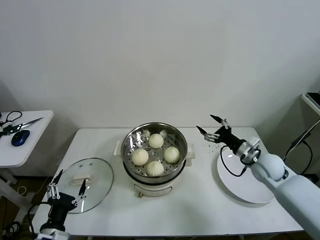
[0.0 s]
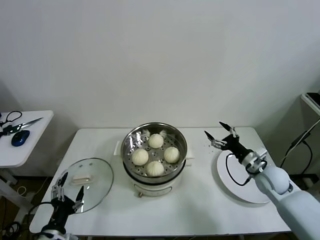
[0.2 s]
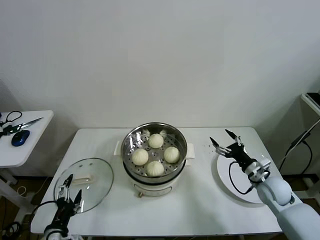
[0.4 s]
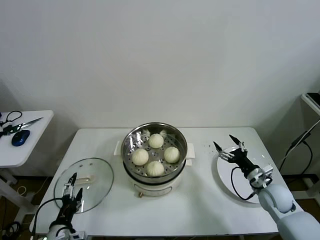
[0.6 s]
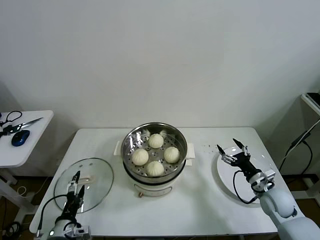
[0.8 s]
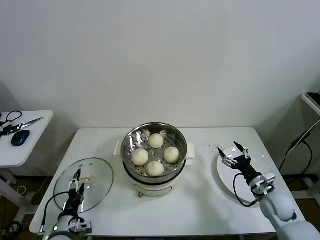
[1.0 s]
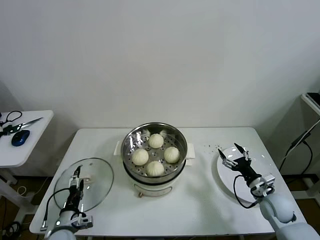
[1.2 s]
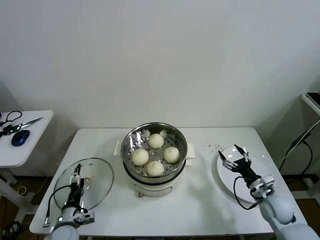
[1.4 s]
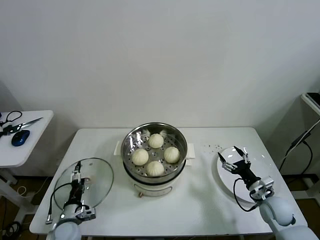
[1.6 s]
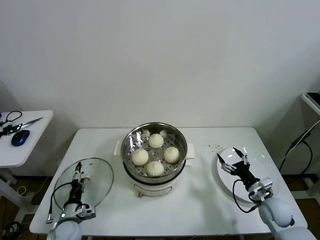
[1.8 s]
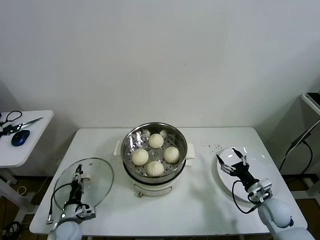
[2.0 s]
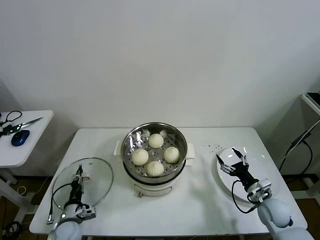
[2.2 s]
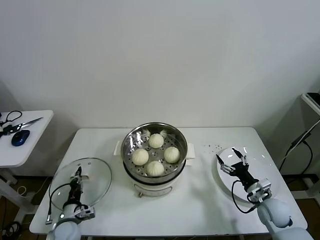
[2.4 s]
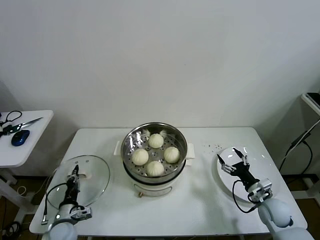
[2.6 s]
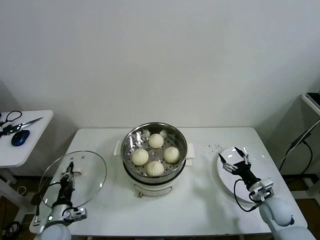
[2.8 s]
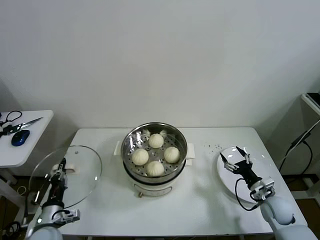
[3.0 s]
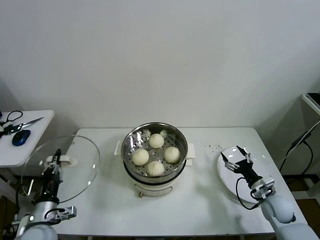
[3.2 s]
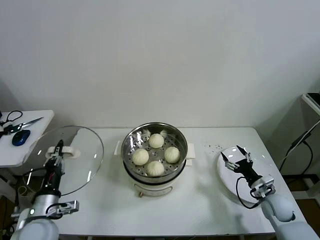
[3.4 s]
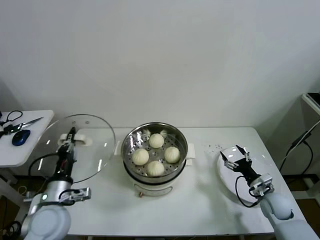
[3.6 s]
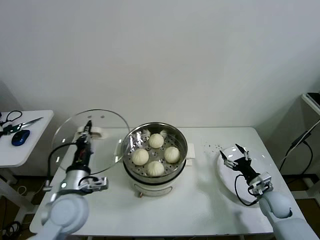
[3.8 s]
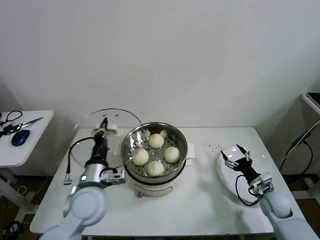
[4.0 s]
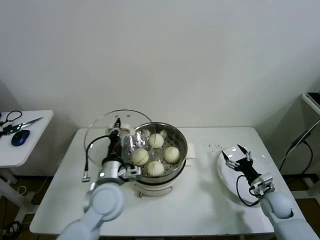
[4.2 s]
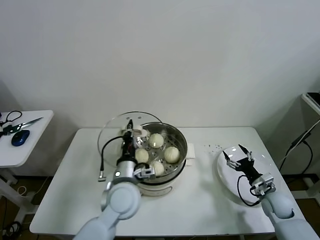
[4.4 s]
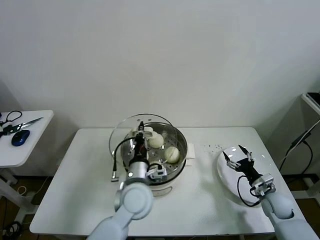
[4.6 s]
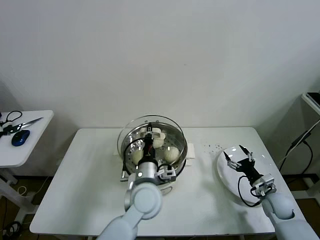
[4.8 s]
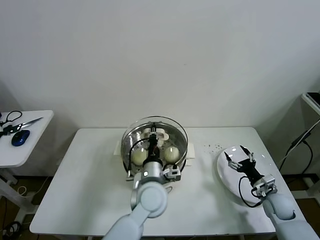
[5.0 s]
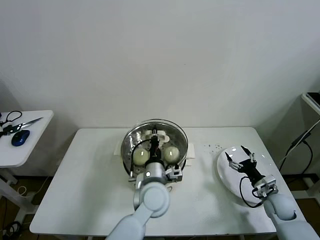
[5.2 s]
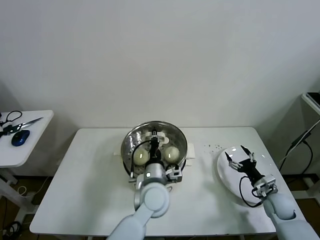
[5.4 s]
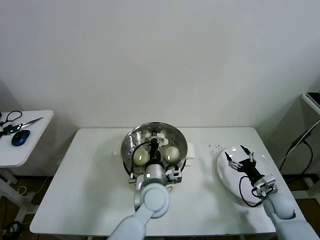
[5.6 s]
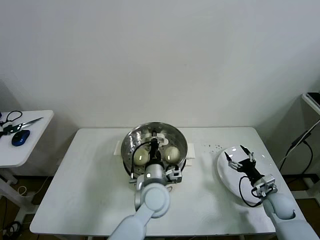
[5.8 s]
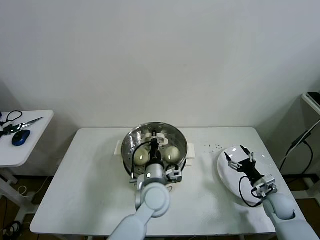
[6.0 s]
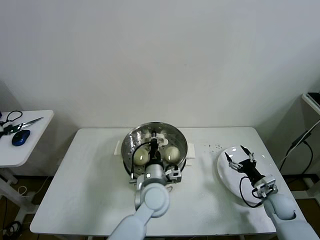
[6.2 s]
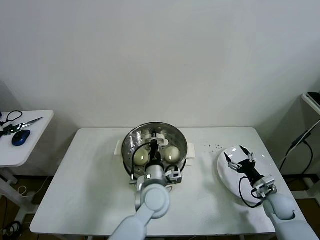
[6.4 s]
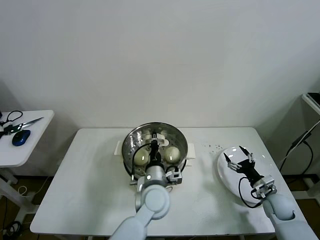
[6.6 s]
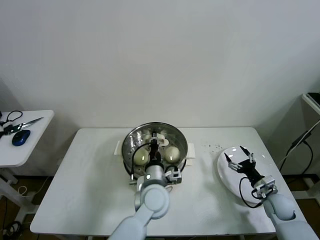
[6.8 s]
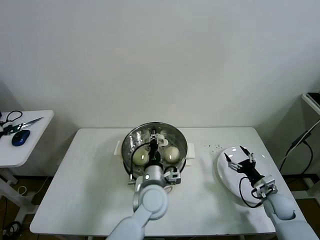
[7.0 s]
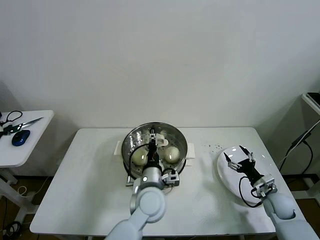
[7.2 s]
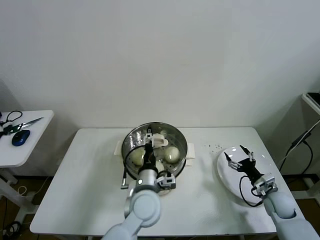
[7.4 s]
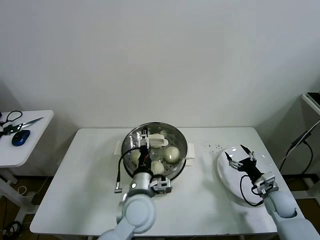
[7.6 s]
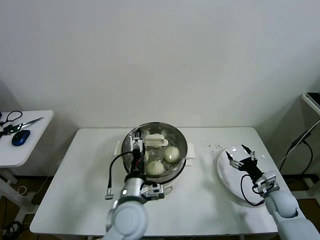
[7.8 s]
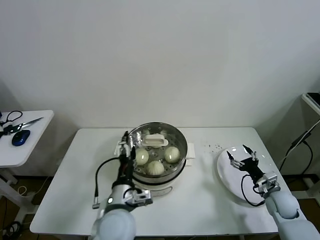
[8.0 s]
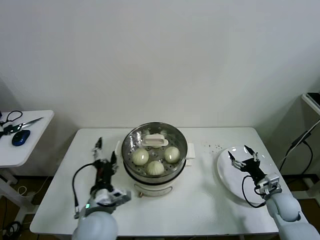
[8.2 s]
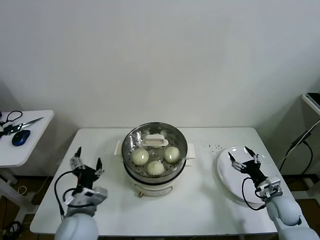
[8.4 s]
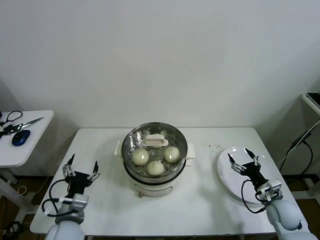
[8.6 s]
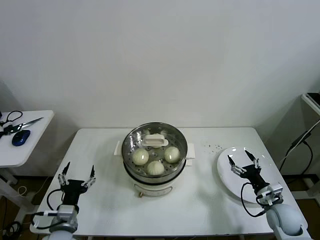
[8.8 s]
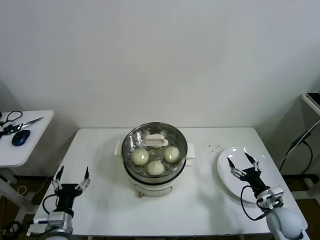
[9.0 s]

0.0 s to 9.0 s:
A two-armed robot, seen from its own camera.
Task of the whole recording: take steamed baozi put them in steamer then cover it.
Step, 0.0 to 2.2 s: Grasp the pot lid with left gripper.
Step, 2.6 to 7.2 s: Place the pot lid on the steamer with left gripper.
0.0 to 1.6 s: The right gripper goes roughly 15 cm downward and backward, while the left gripper moves downward and forward, some 15 cm.
1.6 to 3.0 s: The left gripper heads upward, covering roughly 5 cm, and closes up.
3.0 to 4.4 s: The left gripper goes about 25 cm to the right and upward.
4.4 to 6.0 s: The left gripper goes about 10 cm to the right.
6.0 to 7.6 s: The left gripper ends up some 5 cm from where it was, and opens its fingers.
7.6 to 9.0 s: The left gripper travels to the left by roughly 25 cm; the right gripper travels backward by approximately 5 cm.

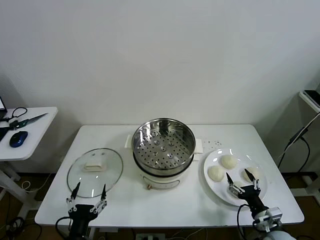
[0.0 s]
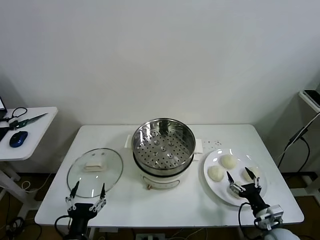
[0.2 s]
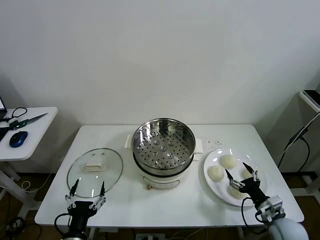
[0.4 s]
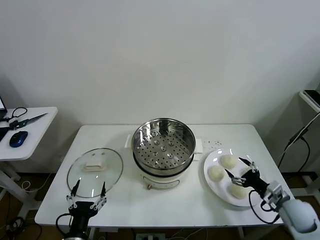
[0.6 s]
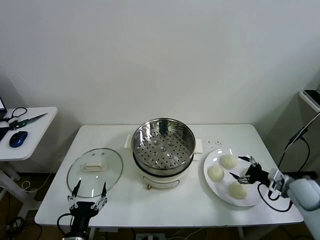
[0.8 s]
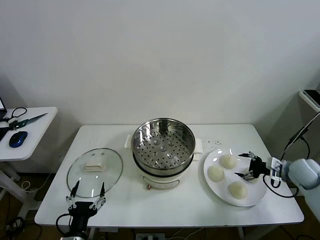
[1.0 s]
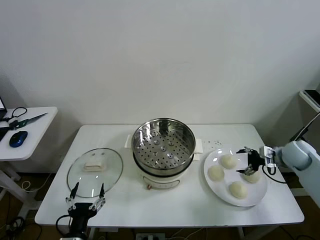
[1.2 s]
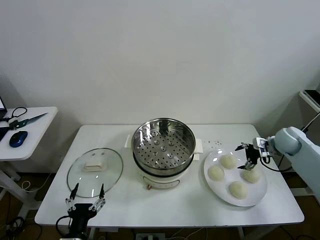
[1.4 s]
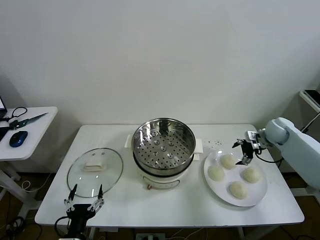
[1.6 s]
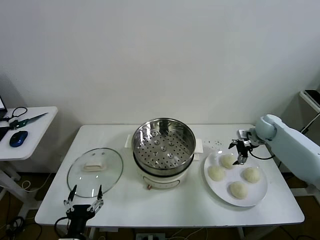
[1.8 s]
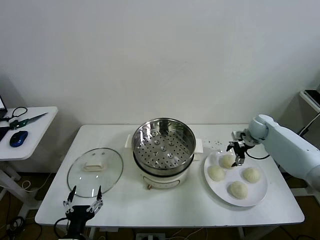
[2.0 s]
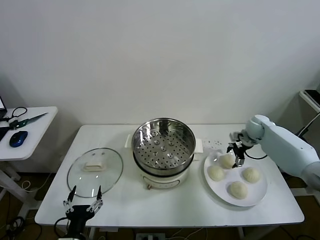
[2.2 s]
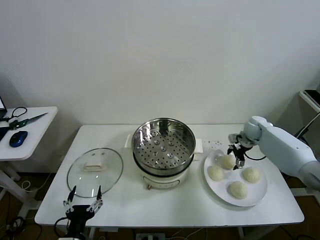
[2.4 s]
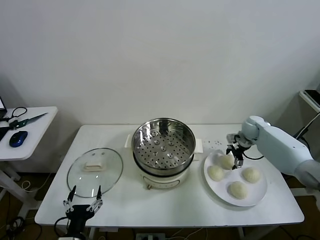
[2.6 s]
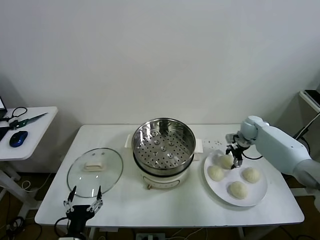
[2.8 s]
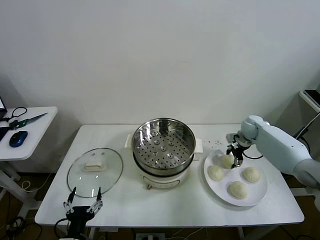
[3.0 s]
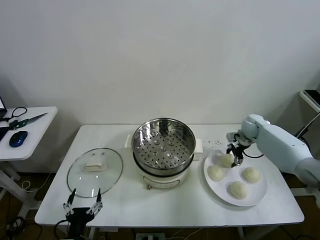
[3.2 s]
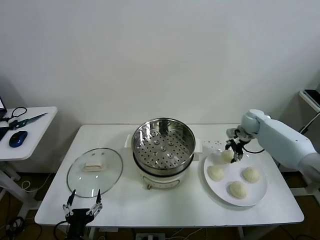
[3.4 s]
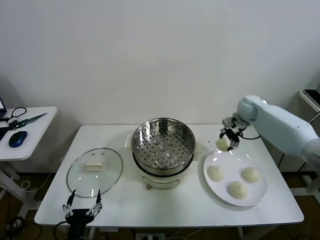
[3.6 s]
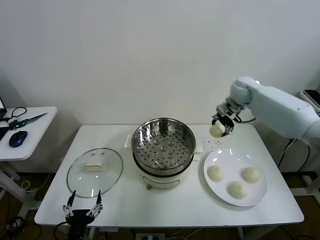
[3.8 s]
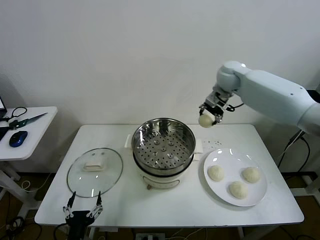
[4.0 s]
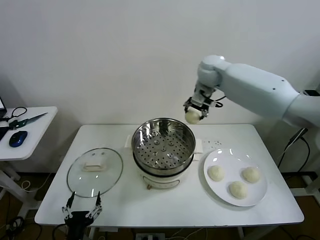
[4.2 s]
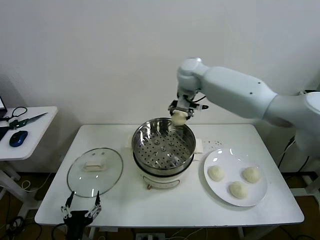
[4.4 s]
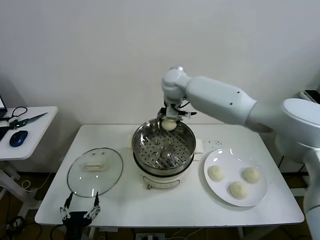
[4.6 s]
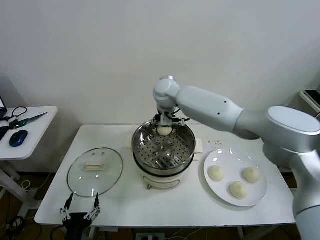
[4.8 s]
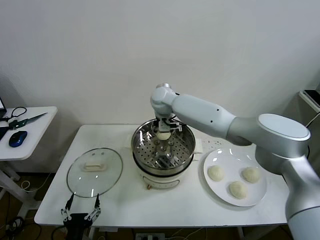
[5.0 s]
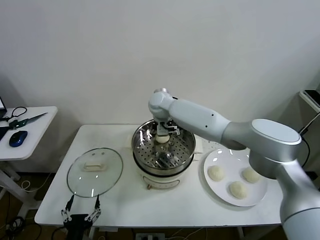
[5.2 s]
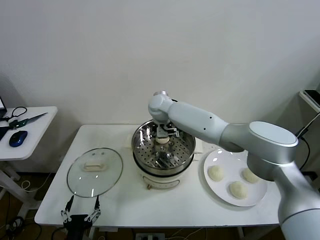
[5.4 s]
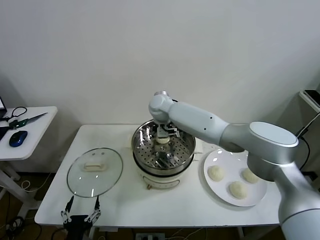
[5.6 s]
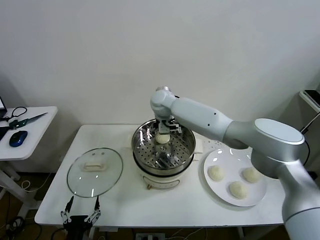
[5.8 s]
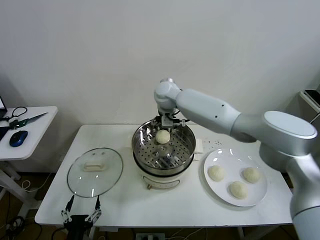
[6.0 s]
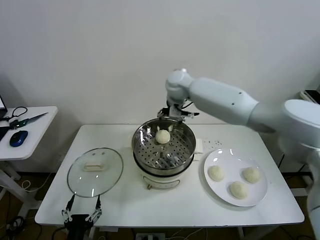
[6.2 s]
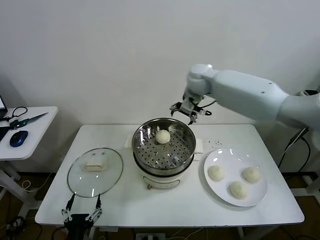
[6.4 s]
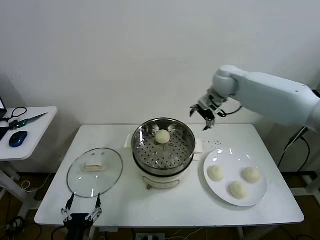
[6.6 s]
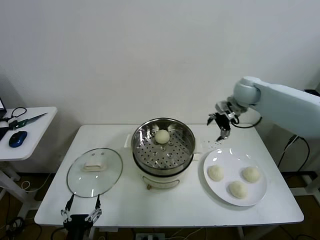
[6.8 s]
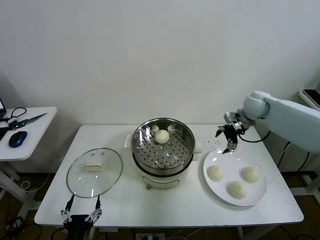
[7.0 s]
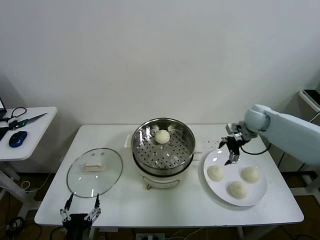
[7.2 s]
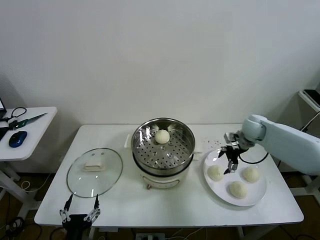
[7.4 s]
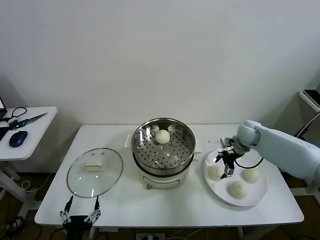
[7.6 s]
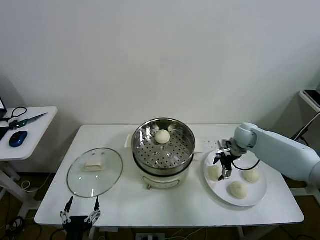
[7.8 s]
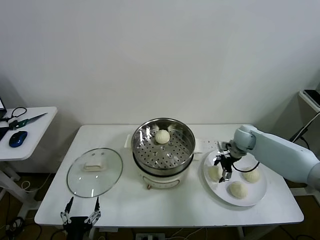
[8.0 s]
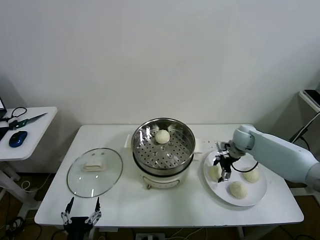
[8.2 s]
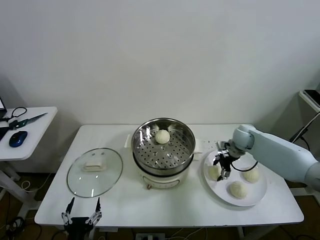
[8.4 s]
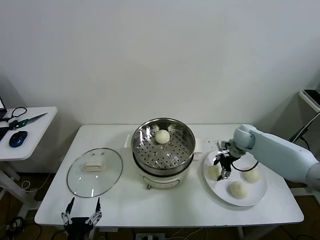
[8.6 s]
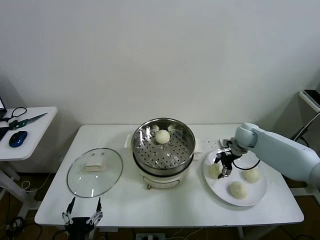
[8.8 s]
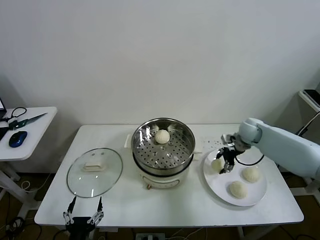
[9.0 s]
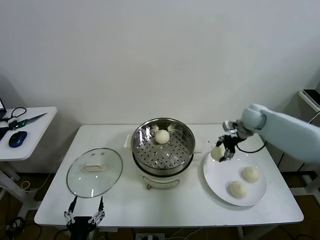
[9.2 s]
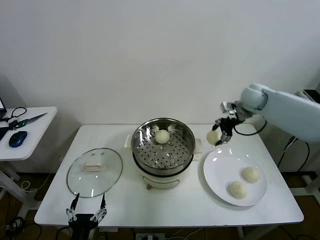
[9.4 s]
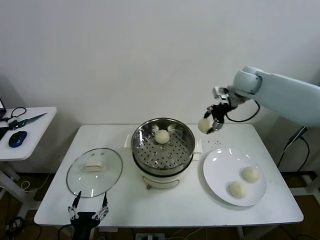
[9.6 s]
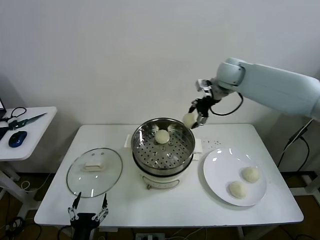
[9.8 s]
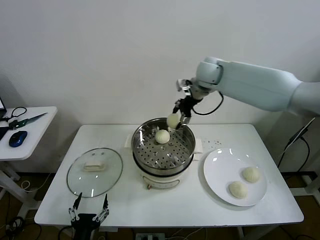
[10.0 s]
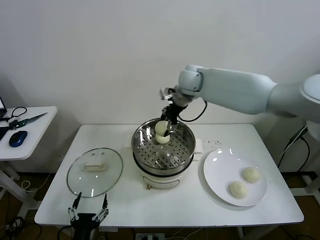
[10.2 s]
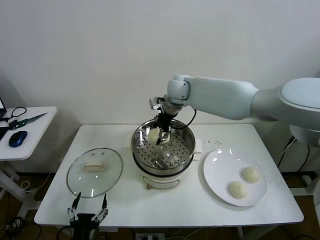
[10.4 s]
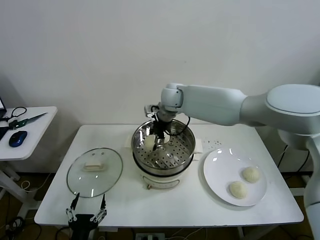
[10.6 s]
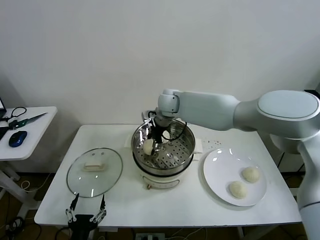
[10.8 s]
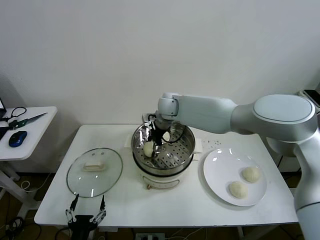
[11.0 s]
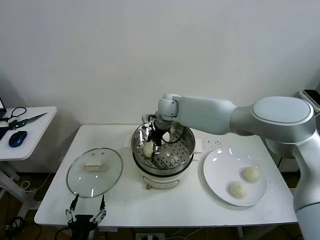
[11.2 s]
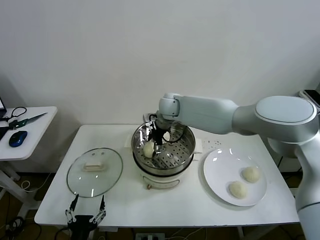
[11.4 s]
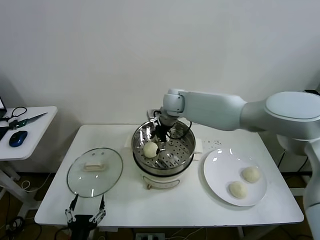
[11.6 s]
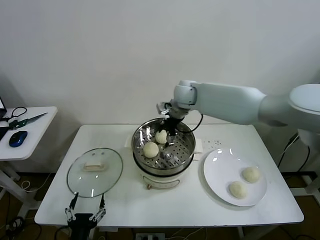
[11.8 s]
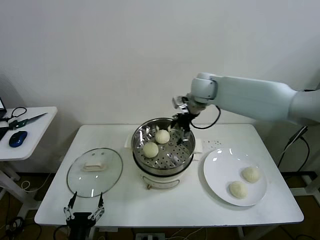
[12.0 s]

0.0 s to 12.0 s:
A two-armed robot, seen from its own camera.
Task of the whole recording: take steamed baozi put them in steamer then cover it.
Step, 0.0 to 3.0 s: Grasp the baozi in the plate with right gripper.
Step, 3.2 to 5.6 s: Place the baozi on the steamer with right gripper.
Step, 5.8 to 8.4 s: Grasp the baozi in the plate with right gripper.
Step, 8.6 to 11.4 s: Place the baozi on the steamer with right gripper.
1.6 to 3.0 s: The right gripper ends up some 5 cm from where it was, and closes its fingers.
3.0 to 4.4 s: The right gripper heads to the left and upward, covering some 40 cm.
4.4 to 6.0 s: The right gripper moves roughly 10 cm downward and comes back, and opens up.
6.0 to 7.6 s: The right gripper travels to the right and downward by roughly 35 cm.
7.6 to 9.0 s: The right gripper closes.
9.0 to 10.4 s: The right gripper moves to the left and upward, some 35 cm.
10.4 to 12.0 s: The right gripper shifts about 10 cm to the right, and opens.

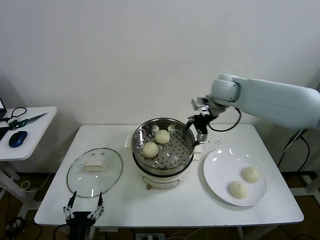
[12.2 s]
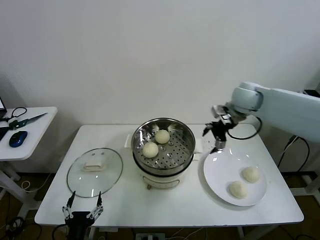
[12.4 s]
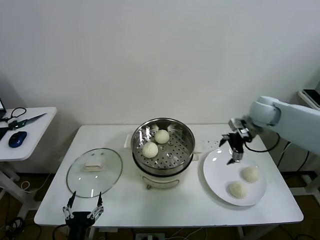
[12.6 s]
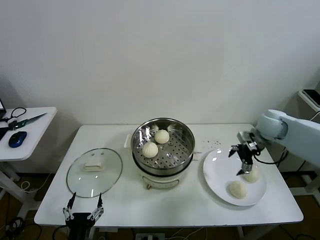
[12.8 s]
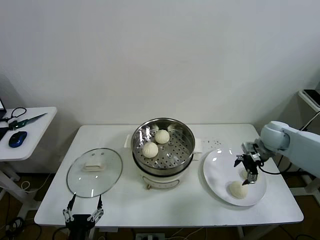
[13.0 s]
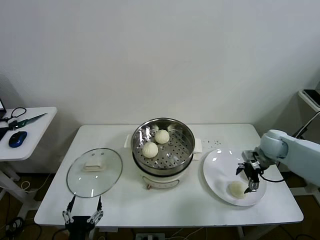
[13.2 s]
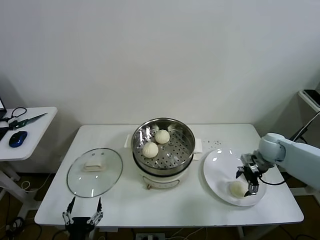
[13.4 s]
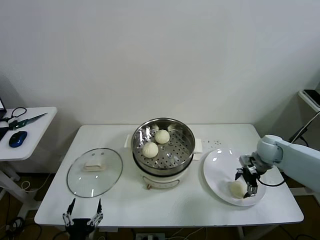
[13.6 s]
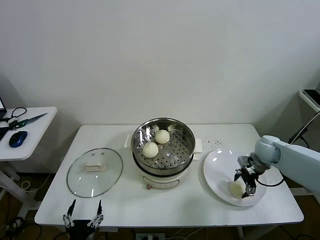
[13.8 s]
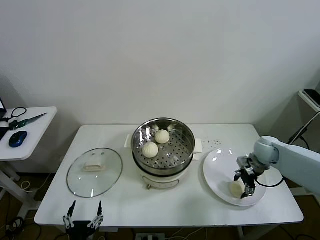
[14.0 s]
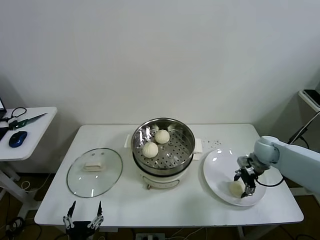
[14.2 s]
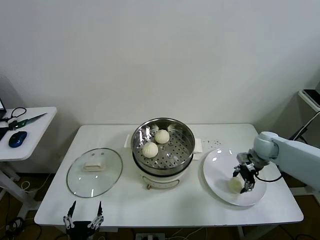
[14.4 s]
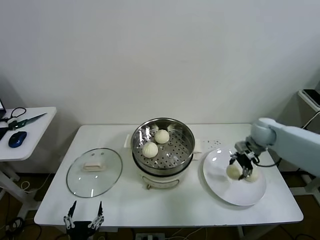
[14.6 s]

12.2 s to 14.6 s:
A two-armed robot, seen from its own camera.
Task of the whole recording: take steamed baozi put them in steamer then cover it.
Step, 12.2 to 14.2 s: Grasp the baozi in the plate with right gripper.
12.2 to 13.4 s: The right gripper shifts some 25 cm downward, to the right and backward.
13.4 to 14.6 s: The right gripper is displaced upward and forward by roughly 10 cm, and closes up.
